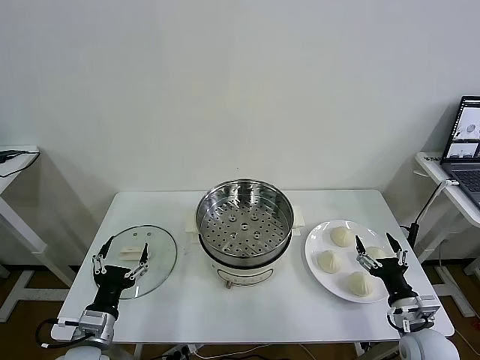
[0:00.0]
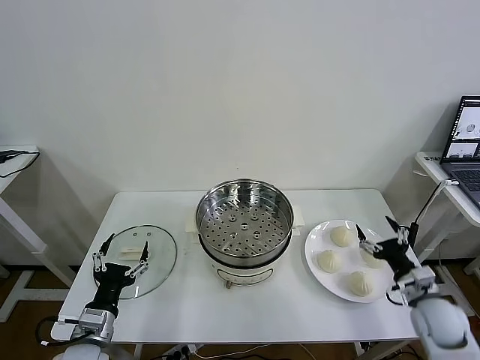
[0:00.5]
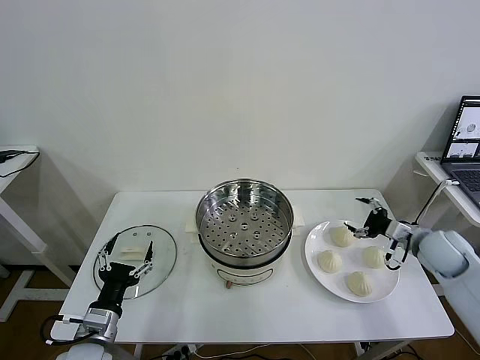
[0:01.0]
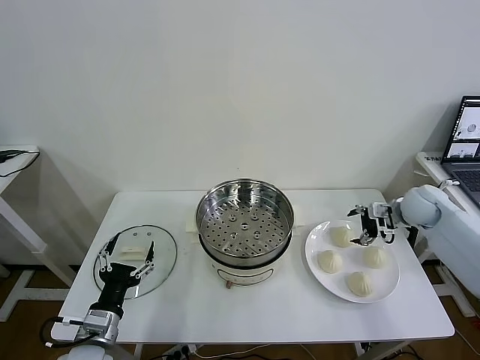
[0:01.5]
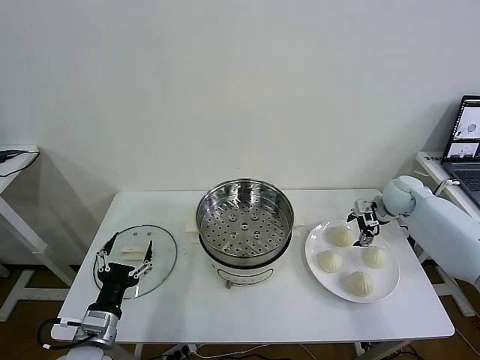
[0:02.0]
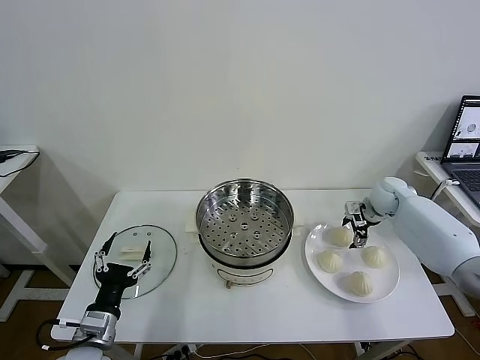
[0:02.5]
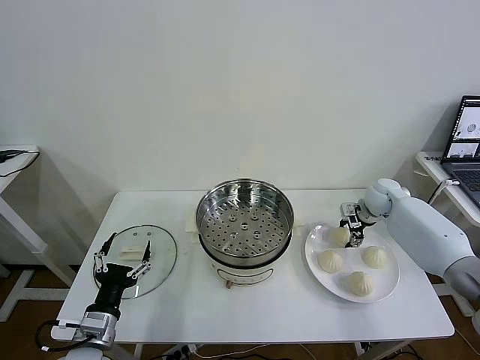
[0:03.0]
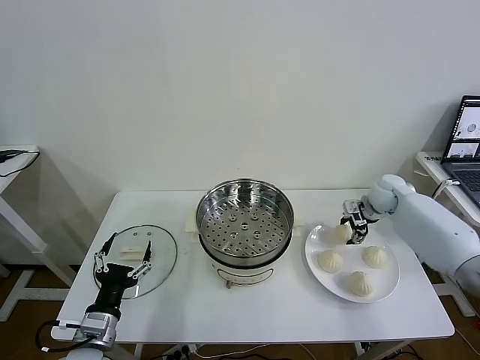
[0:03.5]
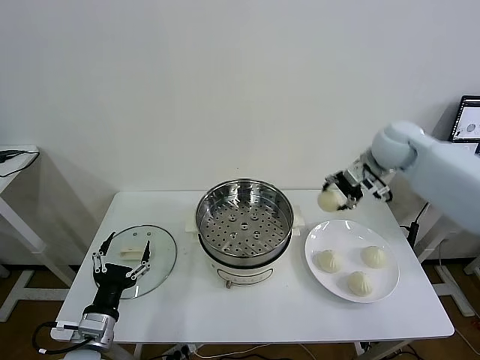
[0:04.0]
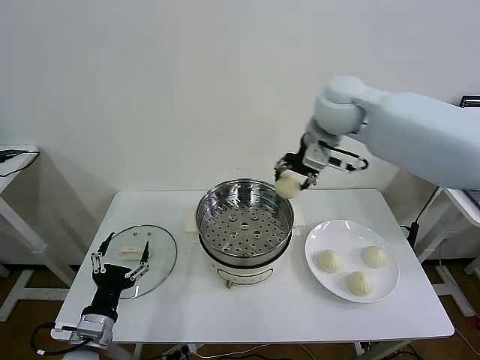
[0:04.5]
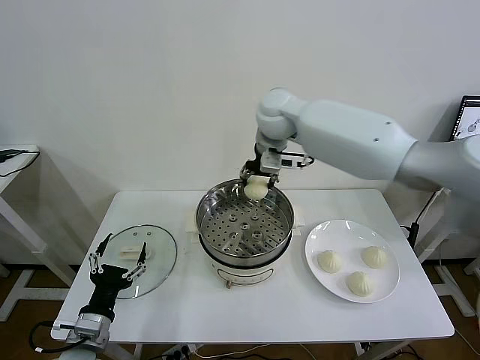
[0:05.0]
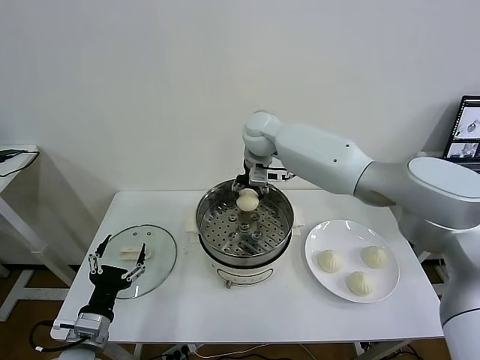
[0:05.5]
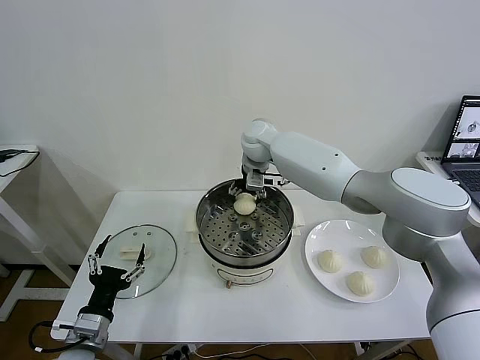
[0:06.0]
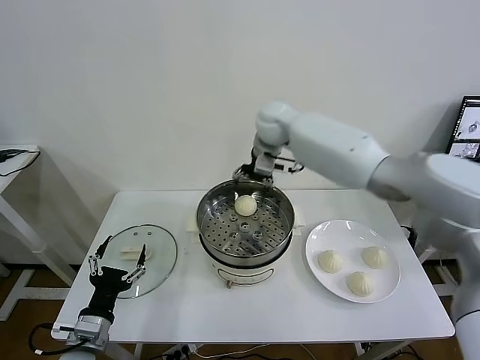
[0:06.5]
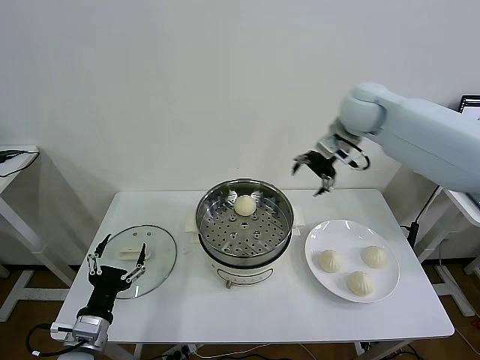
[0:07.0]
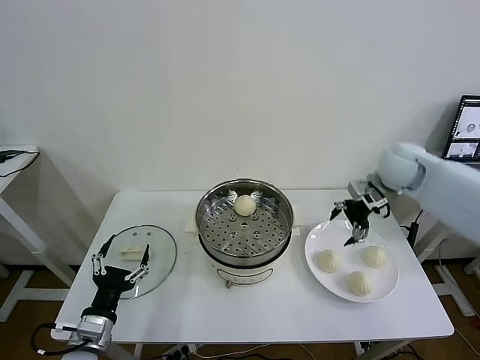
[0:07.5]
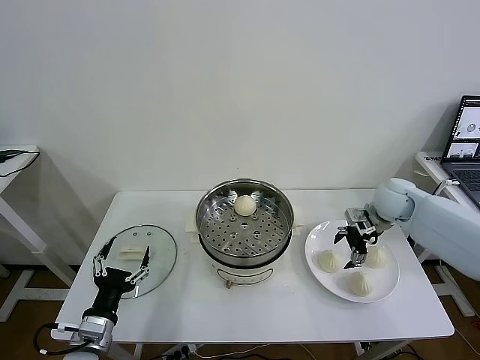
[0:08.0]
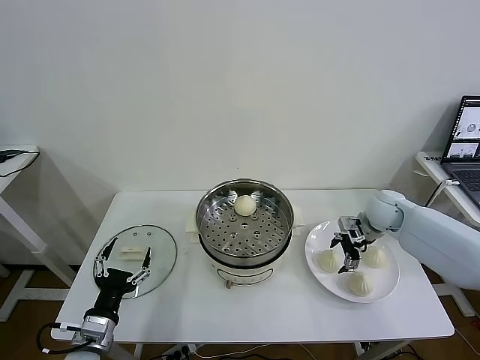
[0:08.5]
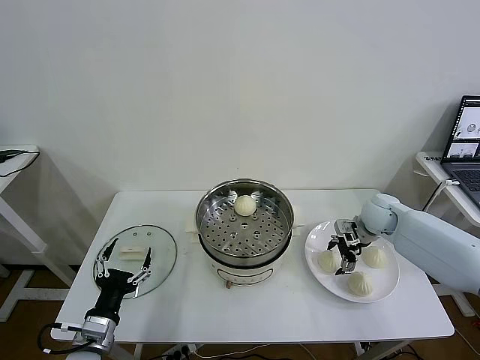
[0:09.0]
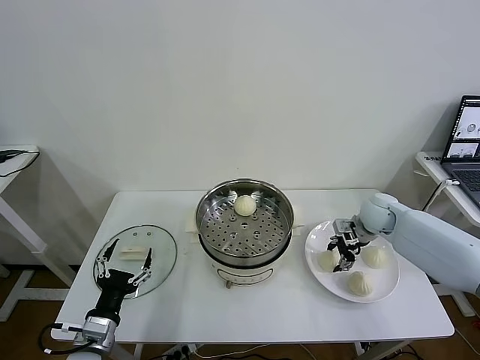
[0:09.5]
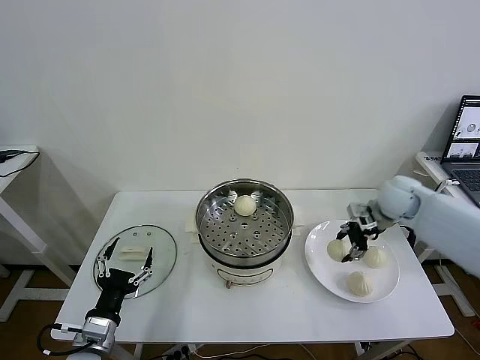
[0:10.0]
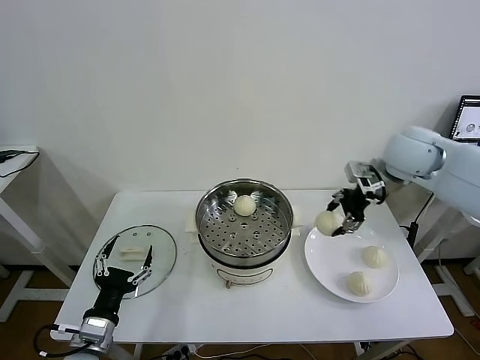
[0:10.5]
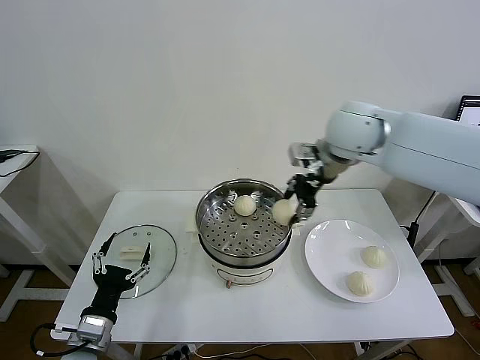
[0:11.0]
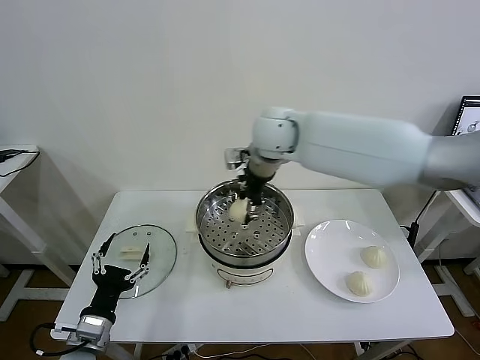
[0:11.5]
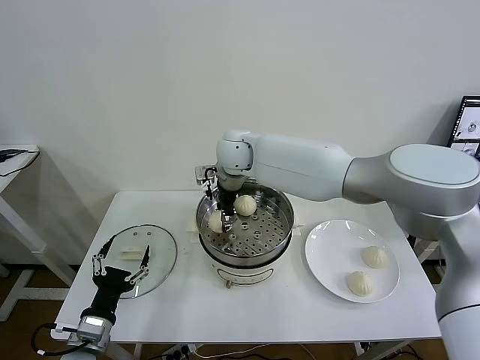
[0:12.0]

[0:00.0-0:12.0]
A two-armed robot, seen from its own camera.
Task of the whole recording: take steamed baozi put them in steamer then cover it.
Step, 0.0 to 2.5 s: Grasp the baozi in the plate with right gripper.
Step, 3.5 to 6.0 s: Place the baozi on the steamer with right gripper.
Step, 6.5 to 9.0 s: Grasp the baozi in the plate with right gripper.
2.0 to 4.0 s: The right gripper travels upward and to the left by about 25 cm, and closes up.
4.0 to 6.0 s: The right gripper is displaced to the left by approximately 25 cm, and opens.
6.0 to 8.0 s: The right gripper travels to the right by about 30 cm.
8.0 to 10.0 s: The right gripper shifts by some 5 cm, and closes up.
10.0 to 12.0 s: The right gripper is displaced to the left by approximately 40 cm.

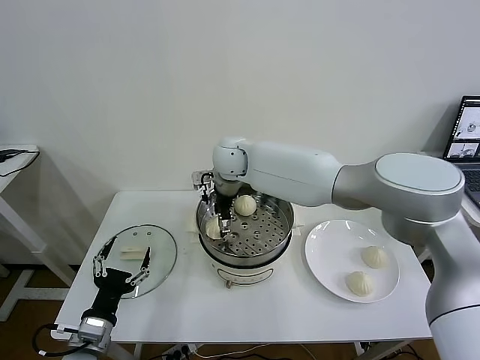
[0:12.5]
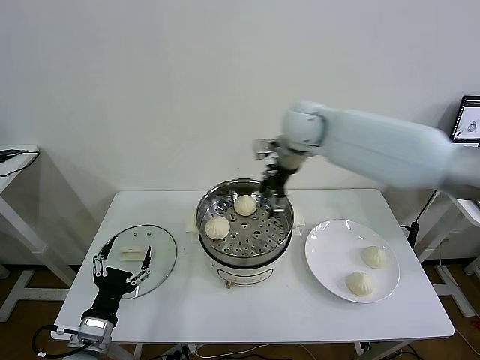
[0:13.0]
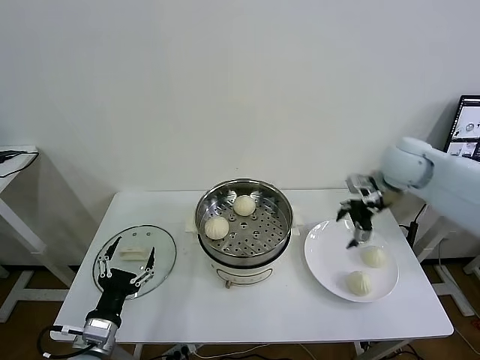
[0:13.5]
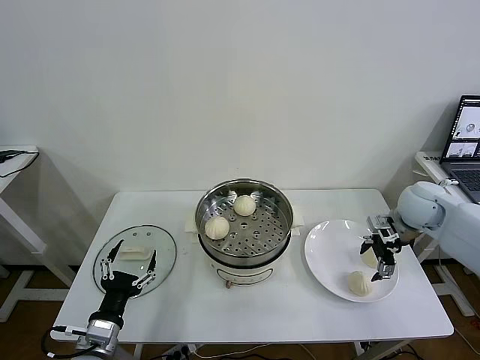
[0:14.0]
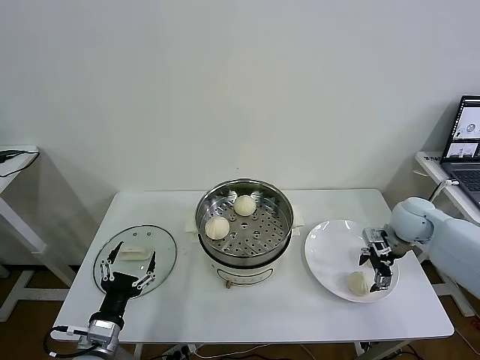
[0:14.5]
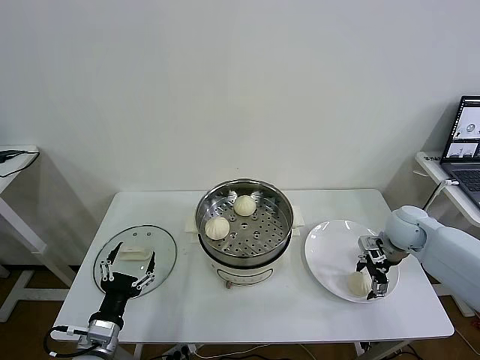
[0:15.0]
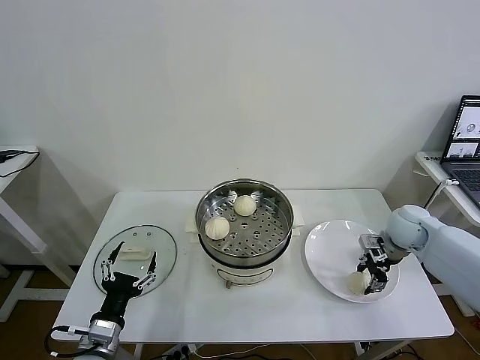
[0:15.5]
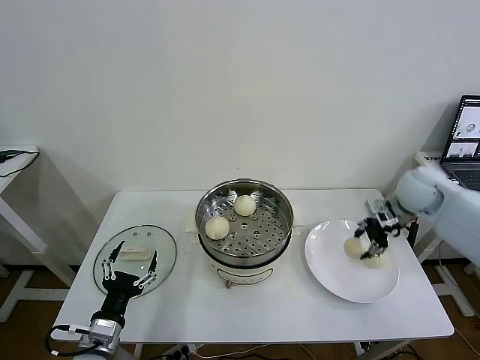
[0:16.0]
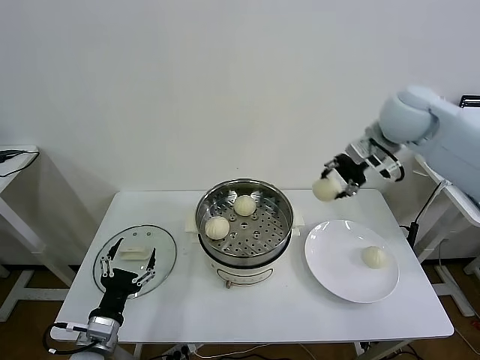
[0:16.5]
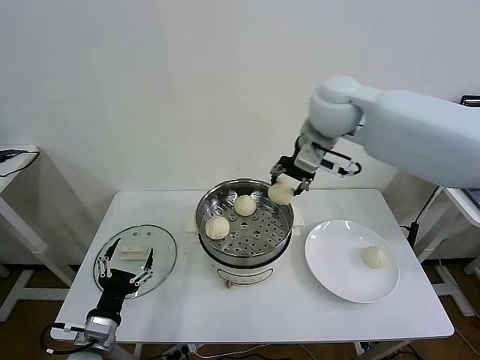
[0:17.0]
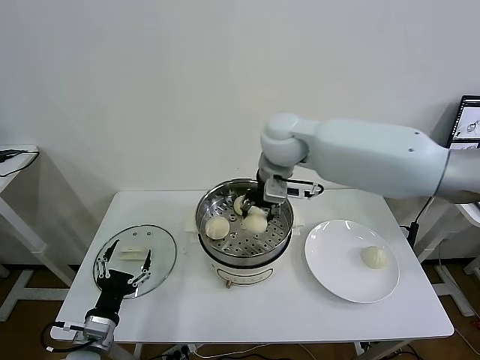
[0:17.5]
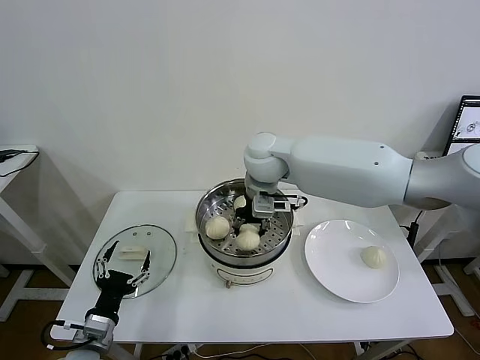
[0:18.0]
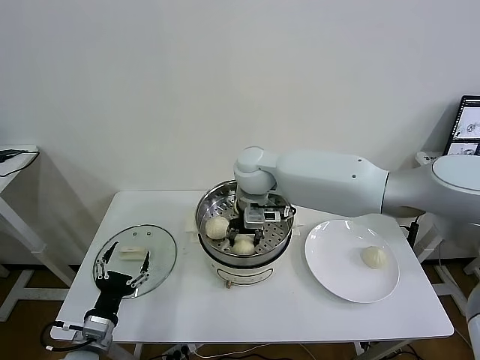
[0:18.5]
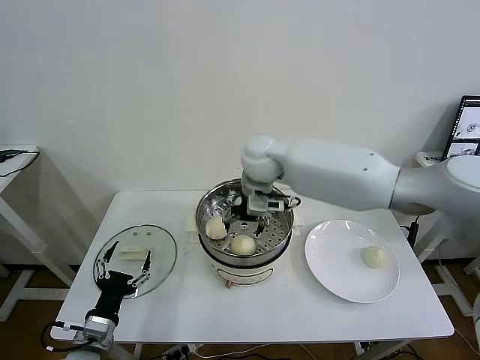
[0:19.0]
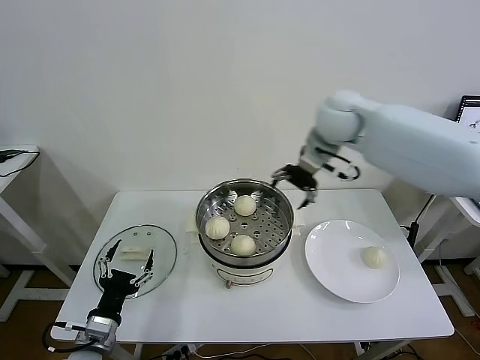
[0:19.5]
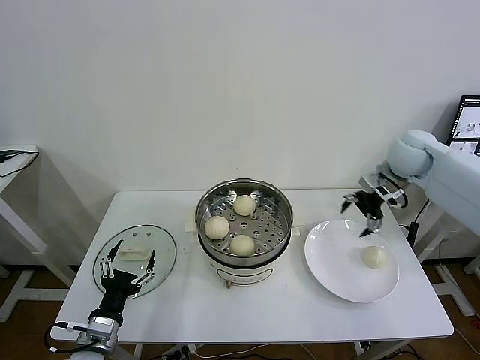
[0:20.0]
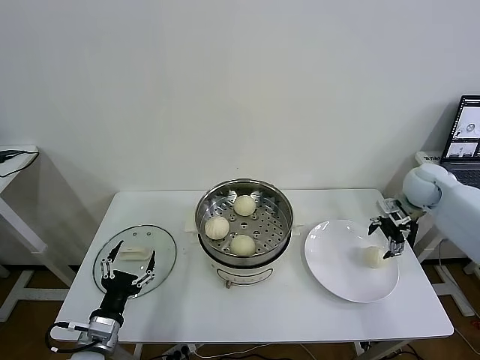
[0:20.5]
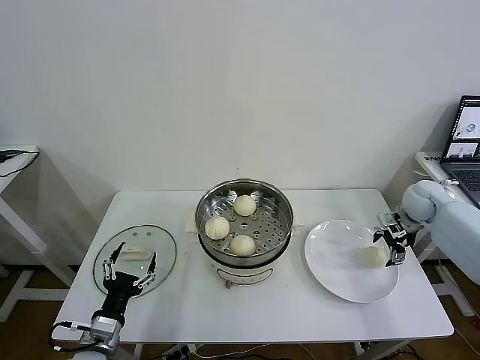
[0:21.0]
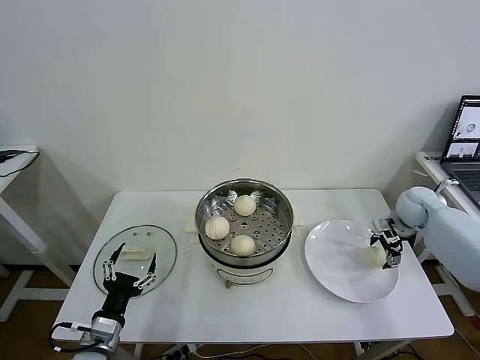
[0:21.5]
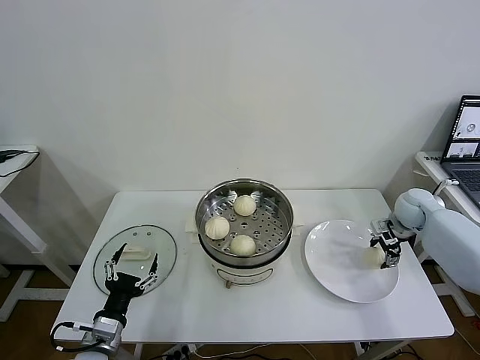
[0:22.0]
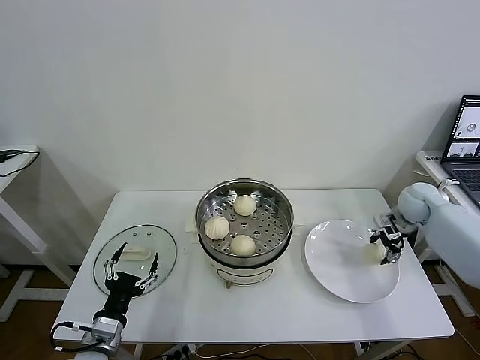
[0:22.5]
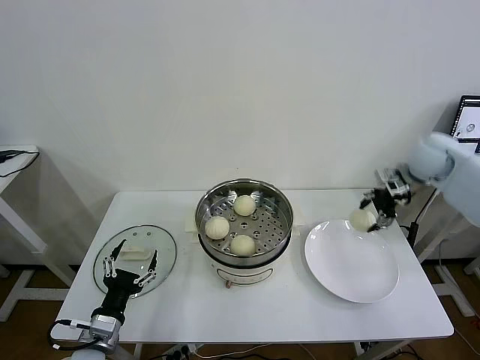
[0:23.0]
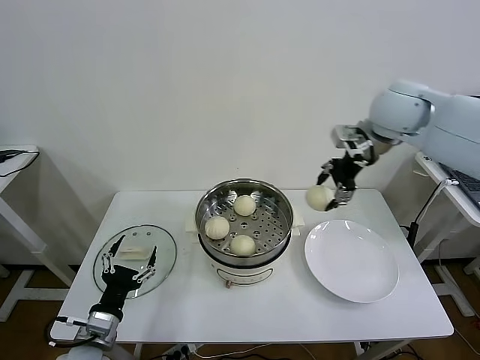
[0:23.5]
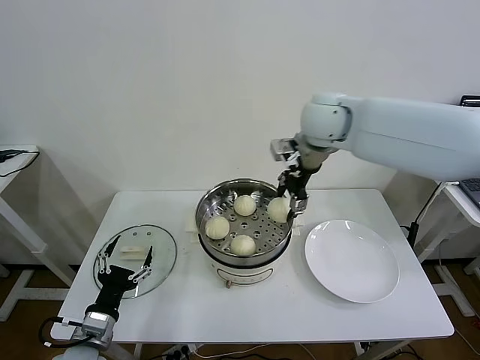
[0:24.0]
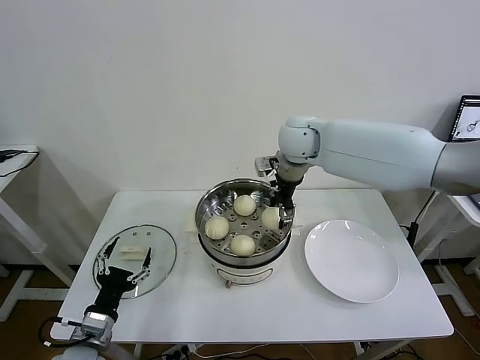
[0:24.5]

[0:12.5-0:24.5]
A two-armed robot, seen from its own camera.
Task of the whole recording: take steamed baozi put them in steamer then cover it.
Step, 13.0 to 15.0 s: Grasp the baozi in the plate with right gripper.
Step, 15.5 to 18.5 s: Place the baozi on the steamer with right gripper.
Step, 19.0 to 22.0 s: Grasp the baozi in the plate with right gripper.
12.5 to 14.5 s: The right gripper moves to the right, some 40 cm.
14.5 to 16.5 s: The right gripper goes approximately 30 cm upward and to the left, and closes its fingers.
16.5 to 18.5 s: The right gripper is displaced to the left and downward by approximately 30 cm.
18.5 to 20.5 s: The right gripper shifts about 40 cm to the right, and opens up.
20.5 to 22.5 s: The right gripper is displaced downward by approximately 5 cm, and closes its fingers.
22.5 to 24.5 s: The right gripper goes about 35 cm to the left and upward.

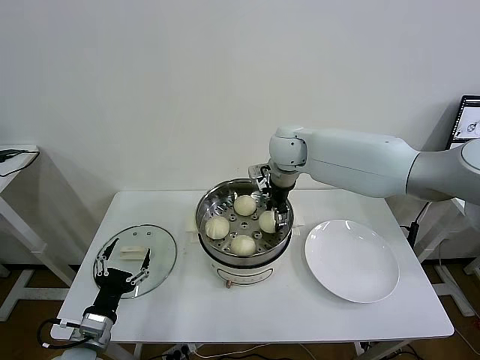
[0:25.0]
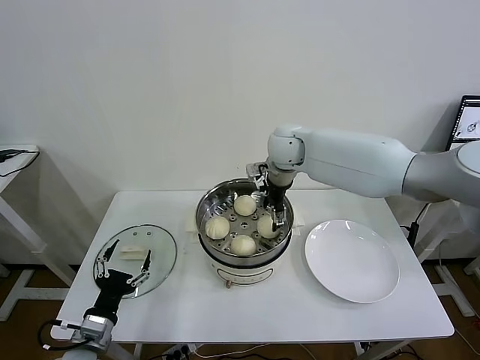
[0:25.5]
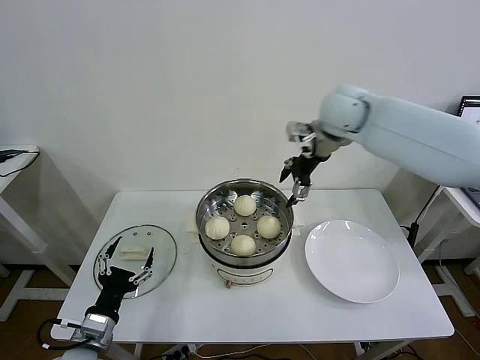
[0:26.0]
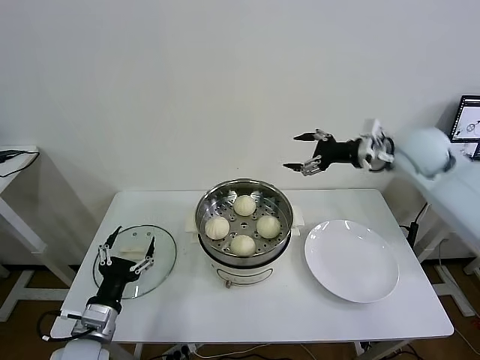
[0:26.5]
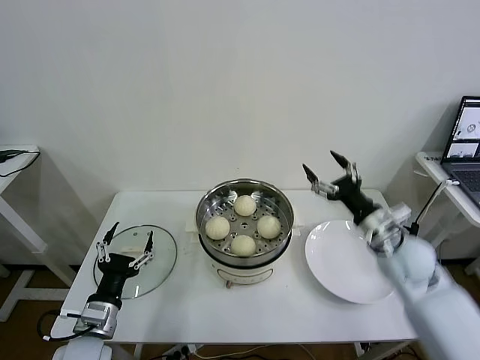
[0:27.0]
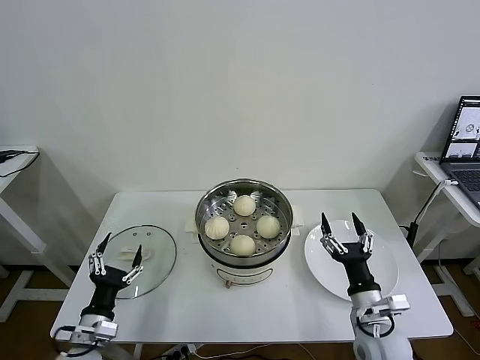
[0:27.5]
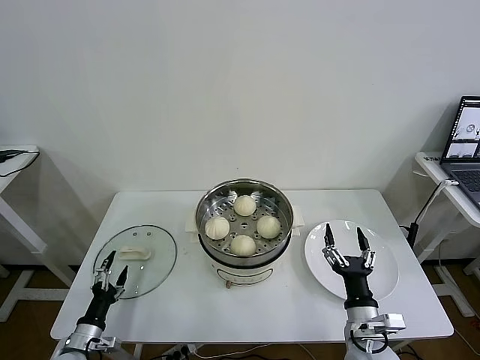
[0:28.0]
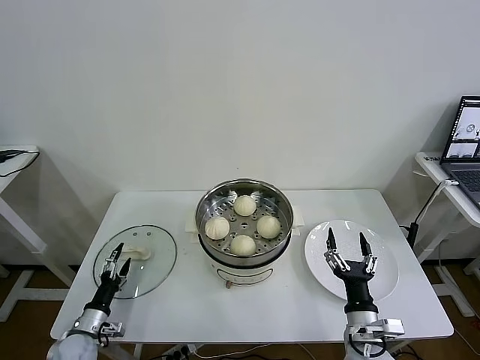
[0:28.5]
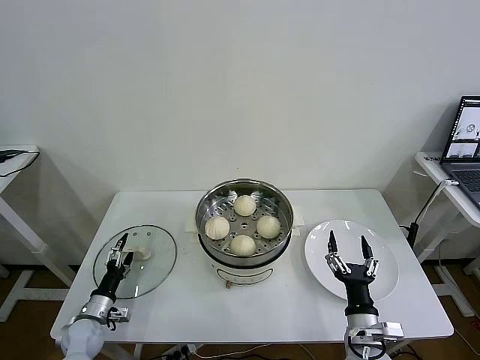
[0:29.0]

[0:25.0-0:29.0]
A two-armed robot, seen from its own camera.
Task of the whole recording: take steamed baozi put them in steamer then cover it.
25.0 to 27.0 s: The right gripper travels to the right, backward and downward by roughly 35 cm, and opens its fingers.
27.0 to 29.0 s: The left gripper heads downward, to the left and forward, covering about 20 cm; the right gripper travels backward, downward and to the left by about 25 cm.
